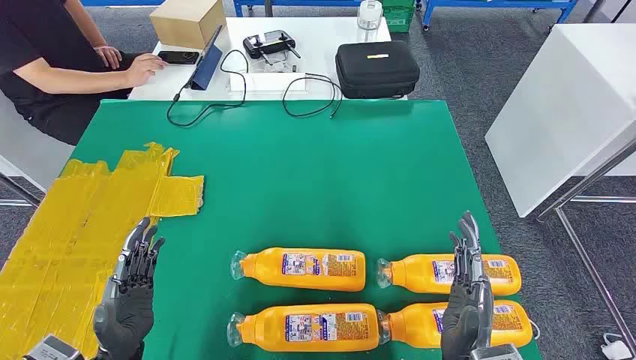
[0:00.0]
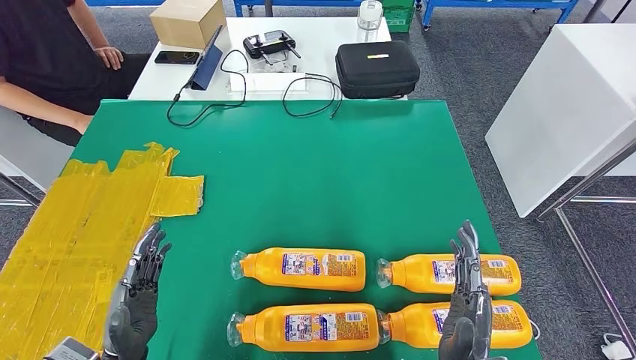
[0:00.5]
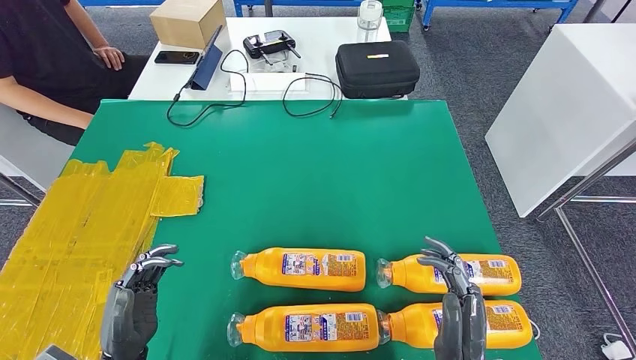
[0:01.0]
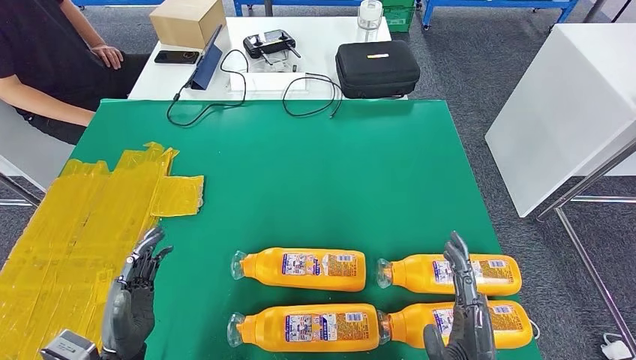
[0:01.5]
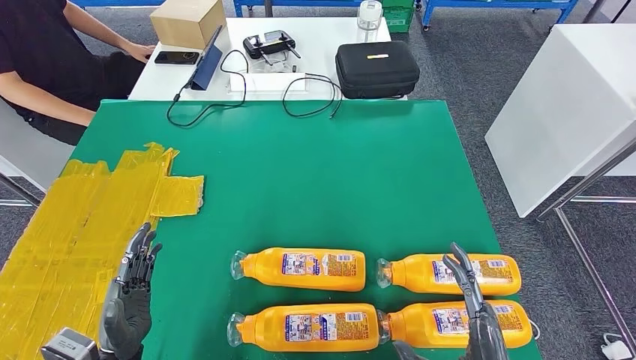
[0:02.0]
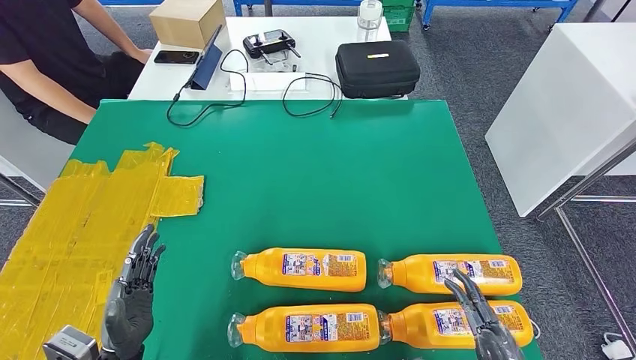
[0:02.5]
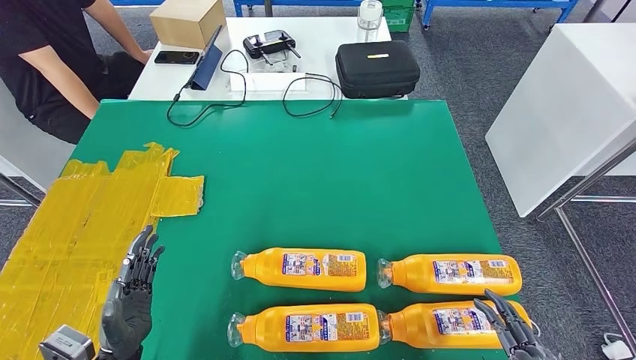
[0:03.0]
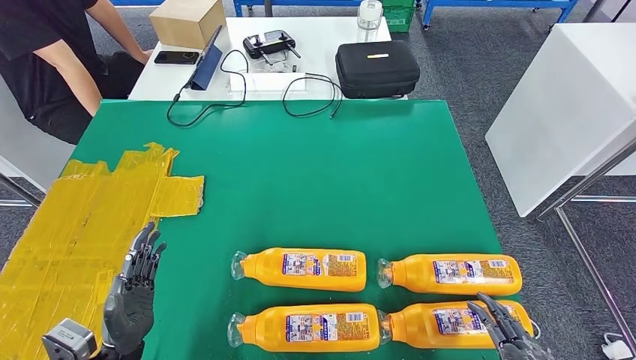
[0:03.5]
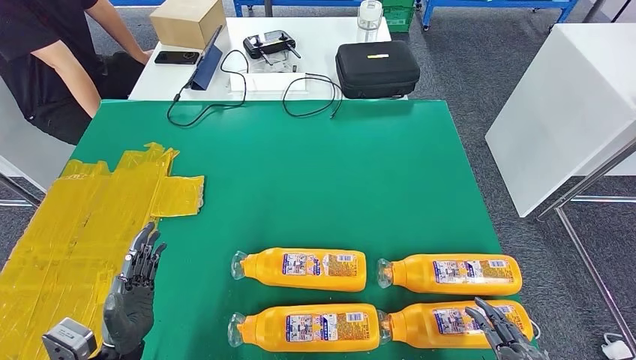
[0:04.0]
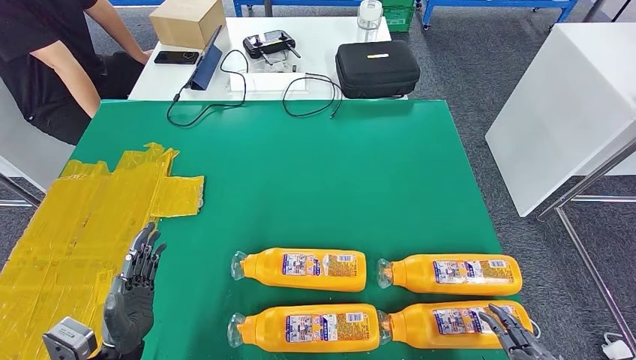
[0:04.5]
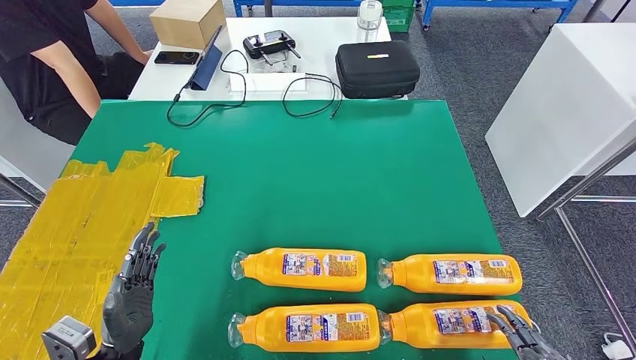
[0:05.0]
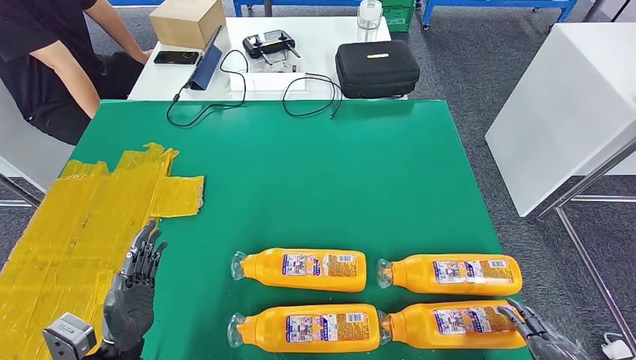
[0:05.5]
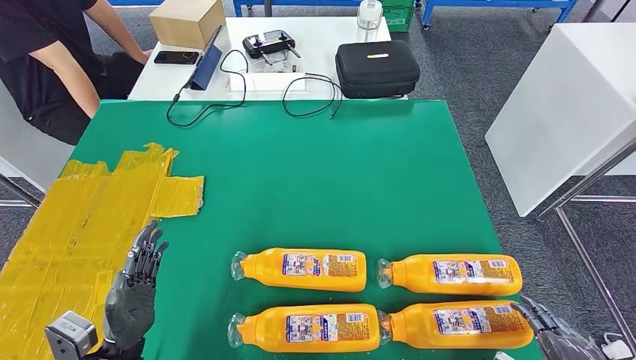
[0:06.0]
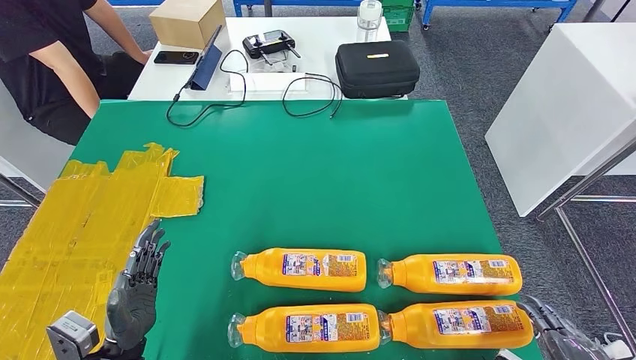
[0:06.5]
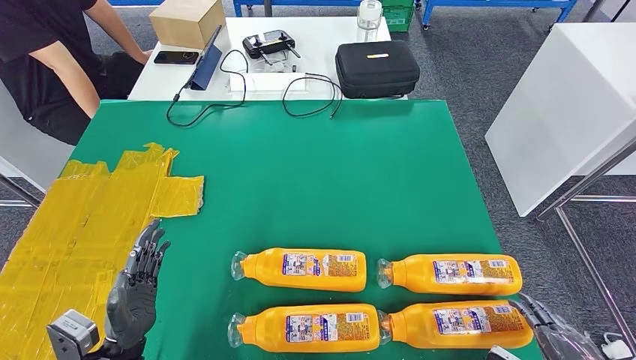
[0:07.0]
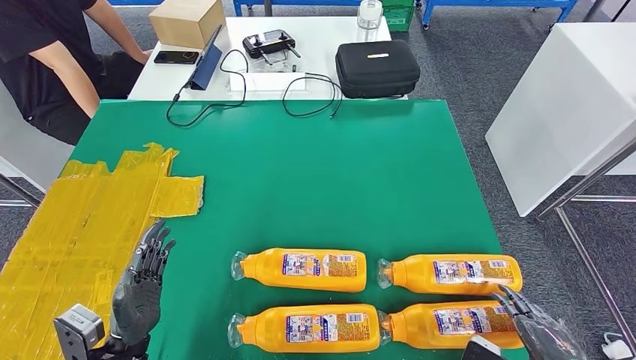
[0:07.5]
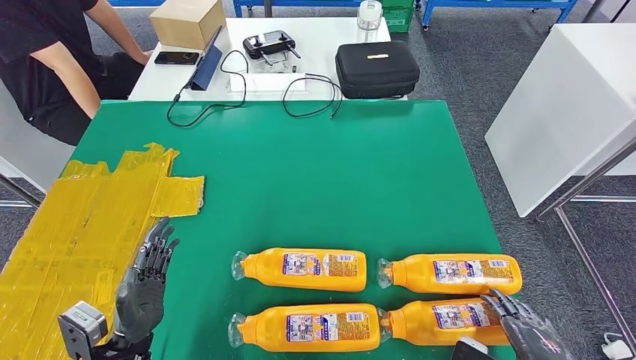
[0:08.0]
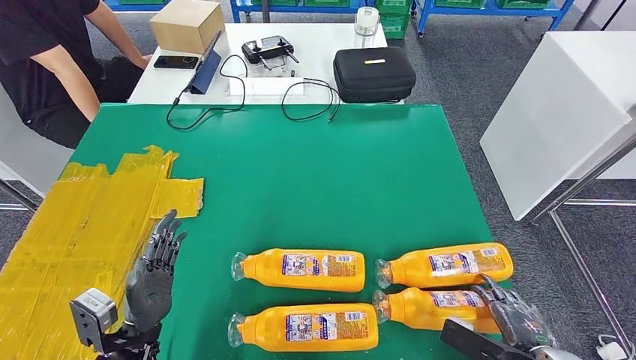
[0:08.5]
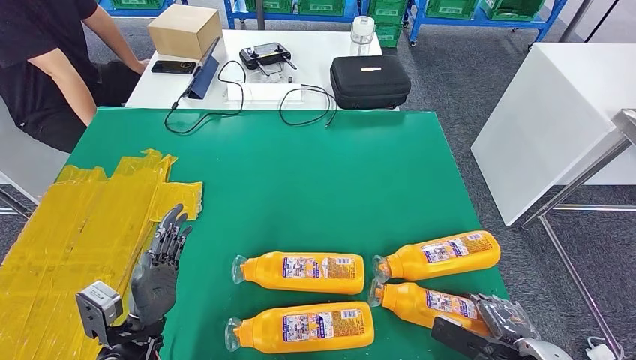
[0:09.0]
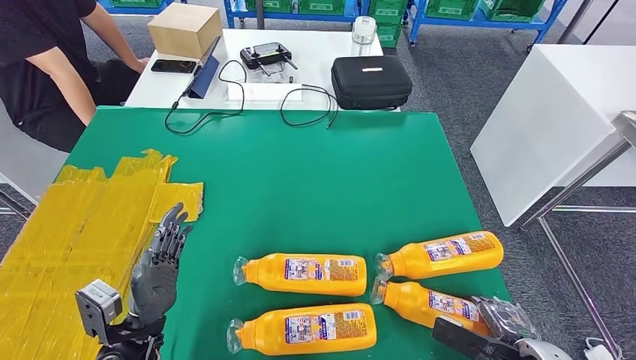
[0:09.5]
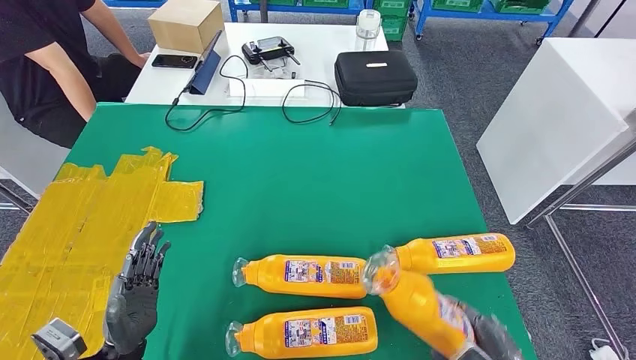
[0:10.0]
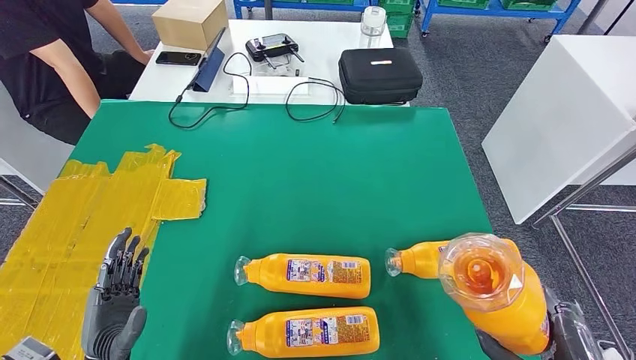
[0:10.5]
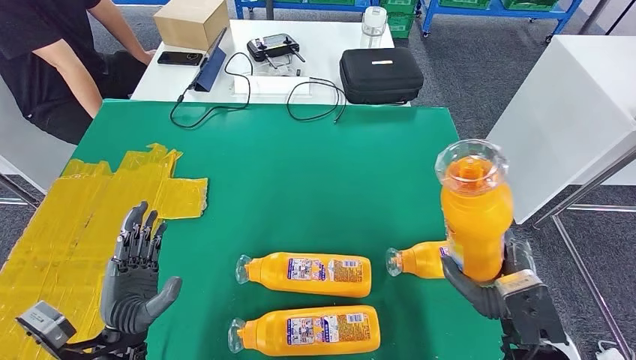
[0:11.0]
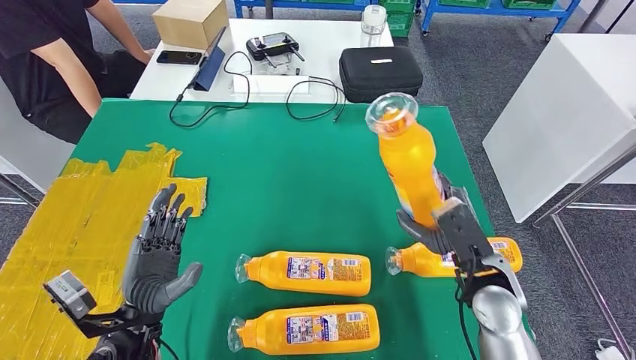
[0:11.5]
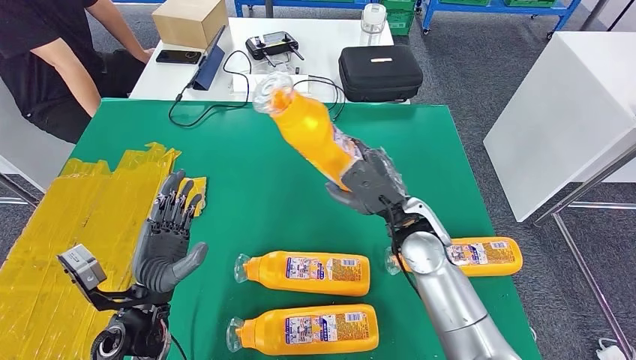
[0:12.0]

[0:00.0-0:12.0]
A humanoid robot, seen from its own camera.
Step, 0:00.0 to 0:11.0: Take the fast-moving consumer goods bottle from the table.
0:02.0 to 0:04.0: The right hand is displaced to the right and backward by approximately 10 cm.
0:04.0 to 0:06.0: The right hand moves to the right, approximately 10 cm.
0:06.0 to 0:08.0: The right hand ends up some 5 cm from where it was.

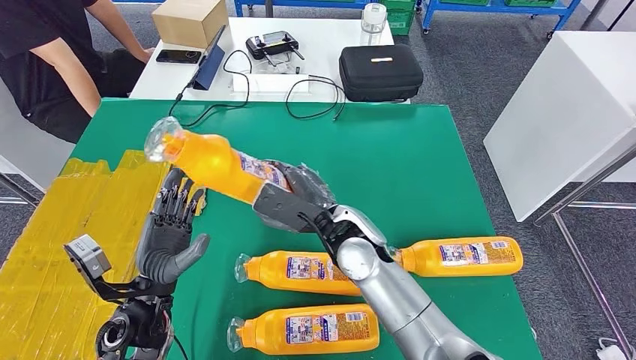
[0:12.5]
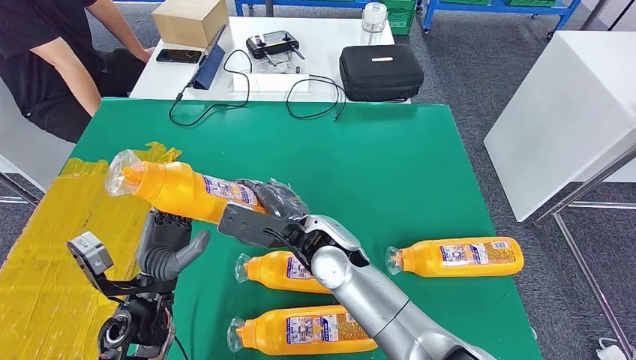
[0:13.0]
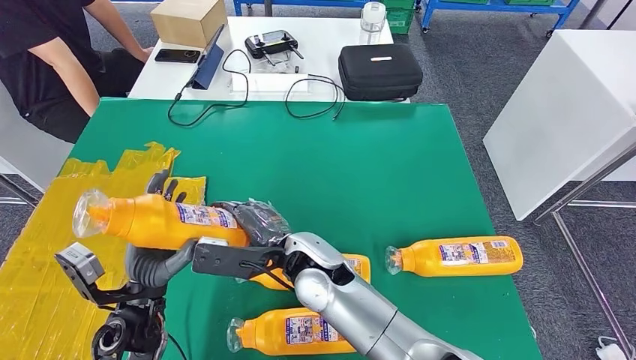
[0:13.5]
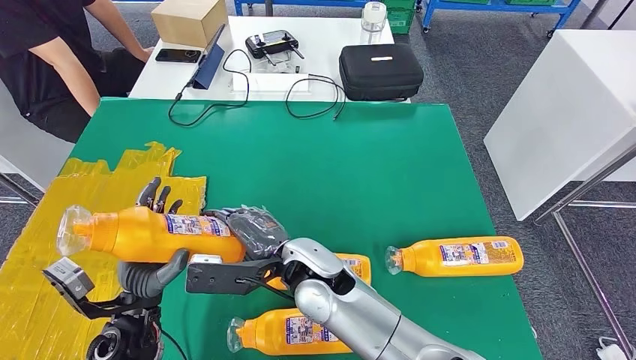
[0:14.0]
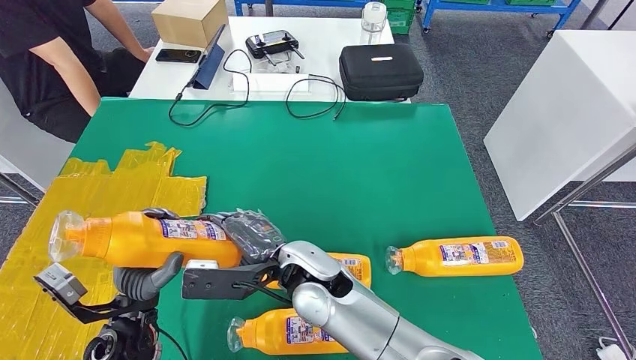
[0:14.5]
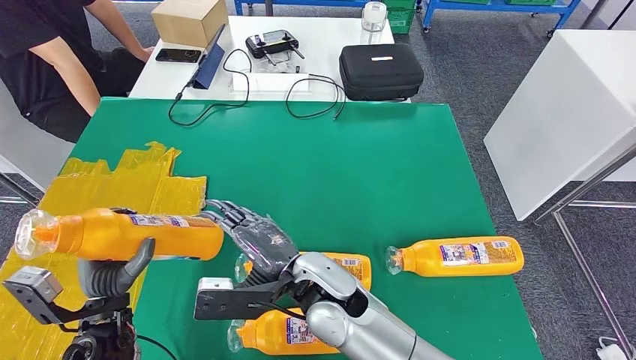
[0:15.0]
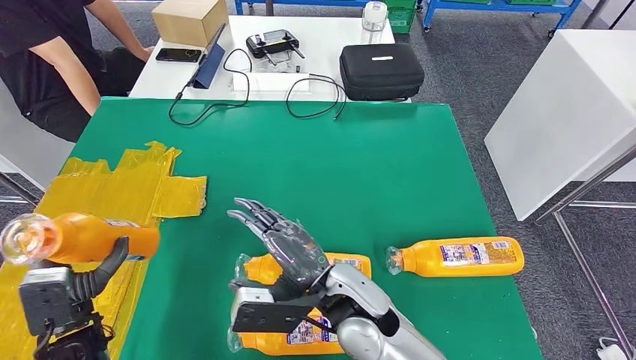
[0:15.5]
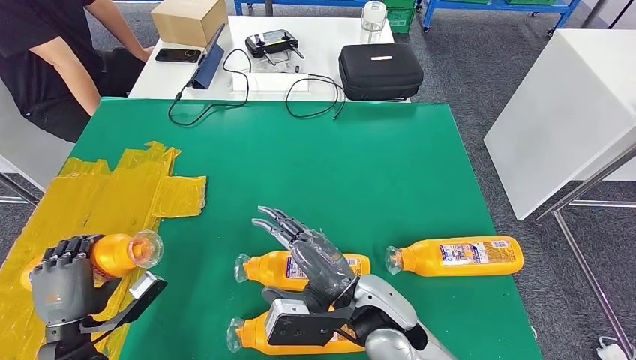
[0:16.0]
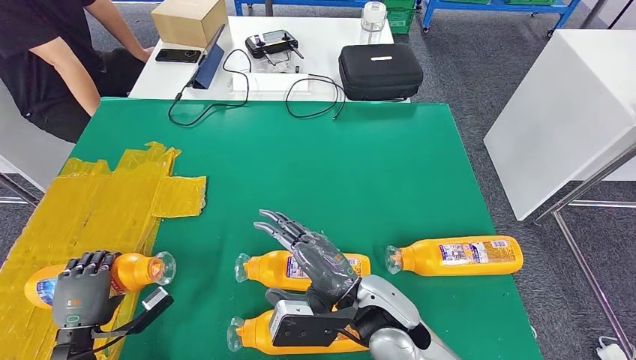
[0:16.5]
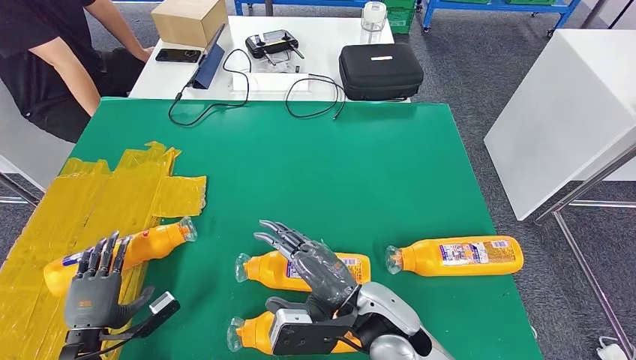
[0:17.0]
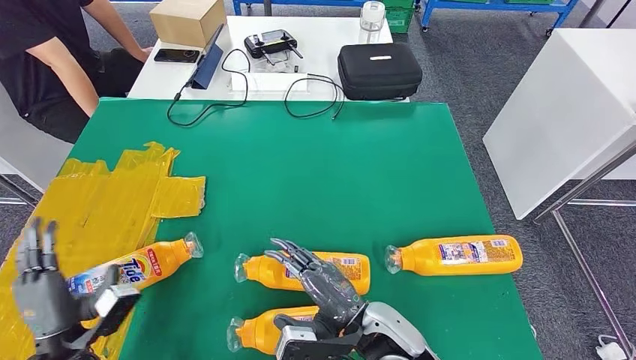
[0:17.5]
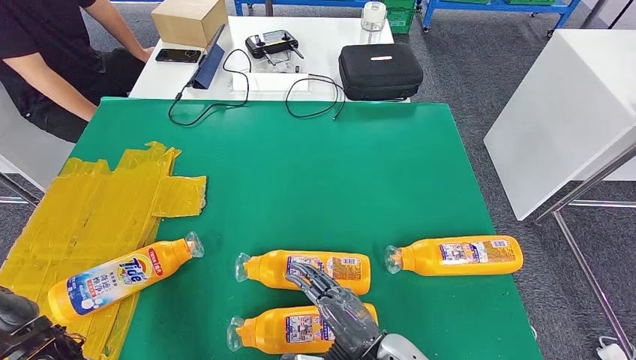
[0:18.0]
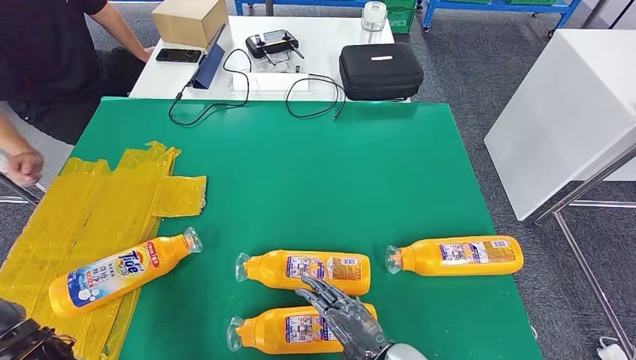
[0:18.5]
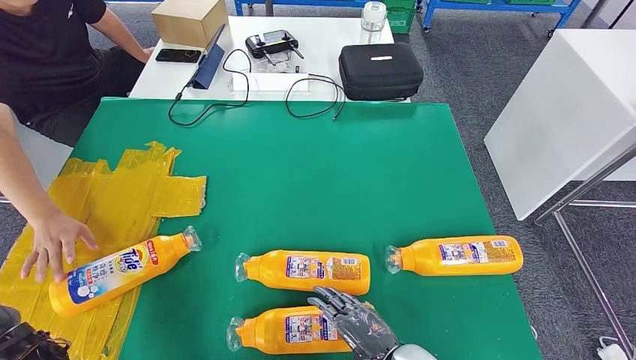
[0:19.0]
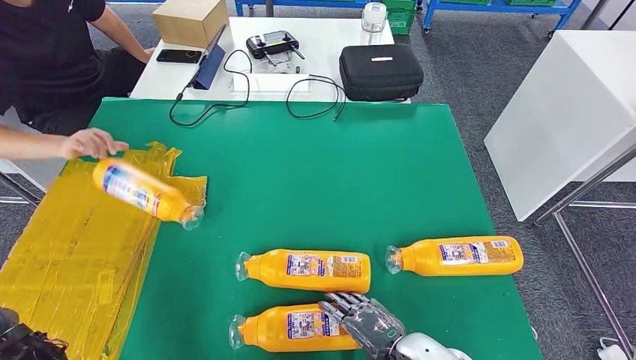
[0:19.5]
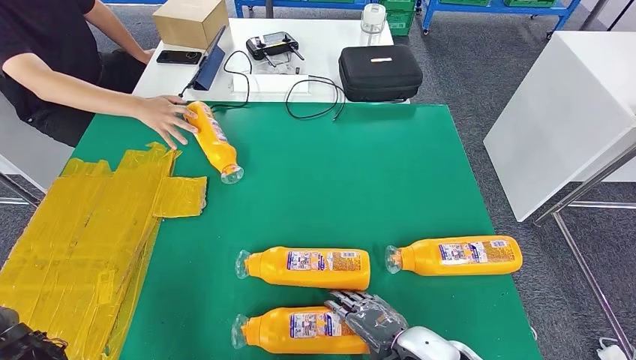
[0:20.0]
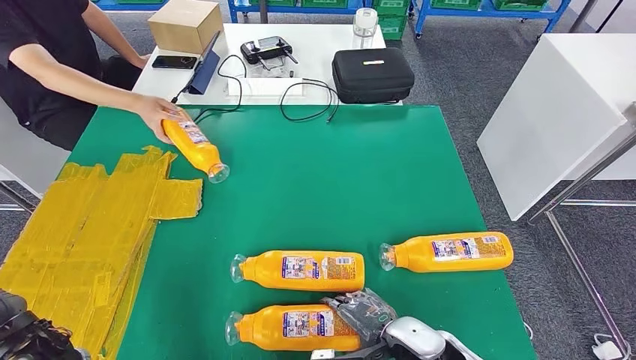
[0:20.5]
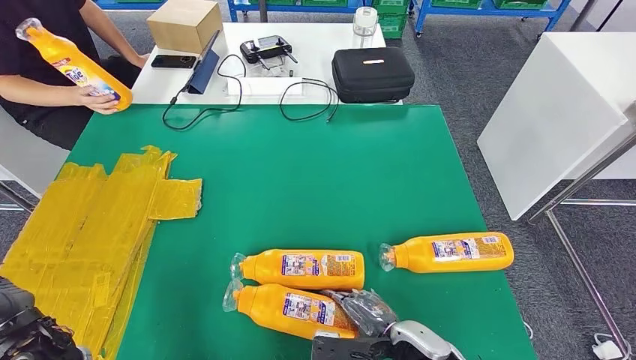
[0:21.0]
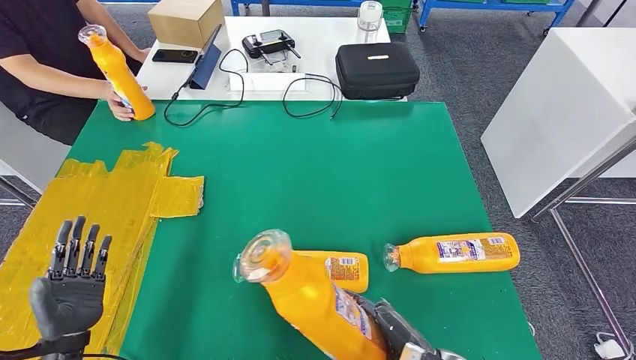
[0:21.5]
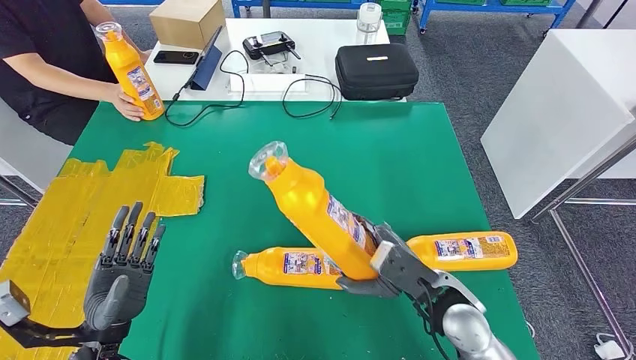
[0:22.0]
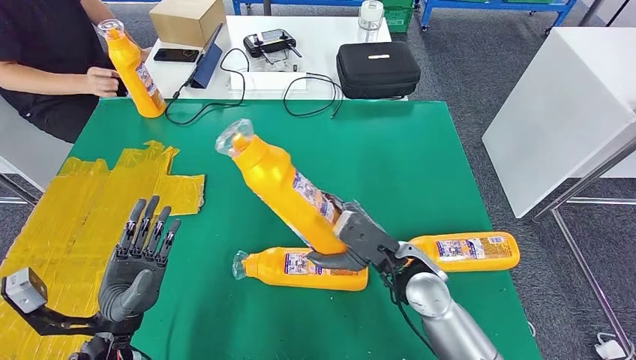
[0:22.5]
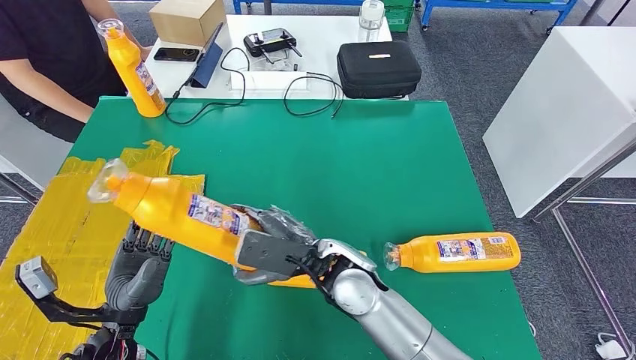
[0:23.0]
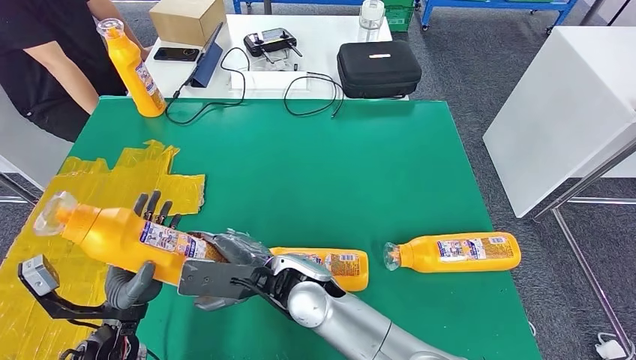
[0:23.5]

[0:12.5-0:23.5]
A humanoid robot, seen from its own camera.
Step, 0:12.5 to 0:17.0: Flip the fast-moving consumer goods bottle to the front side.
Step, 0:17.5 to 0:22.5: Pick up the fast-moving consumer goods bottle from the table.
0:12.5 to 0:14.5: The right hand goes roughly 10 cm to the left and backward.
0:14.5 to 0:16.0: The right hand moves to the right and backward, about 10 cm. The left hand moves to the left, some 10 cm.
0:16.0 to 0:18.0: The right hand travels backward and downward by about 10 cm.
0:18.0 to 0:20.0: The right hand shifts roughly 5 cm to the right.
